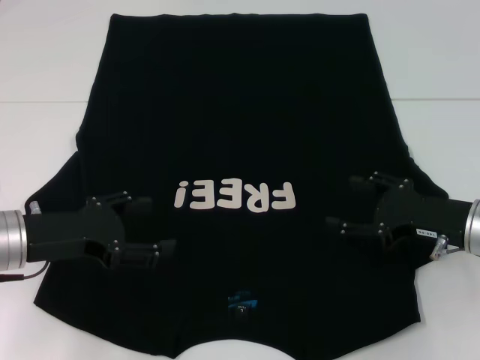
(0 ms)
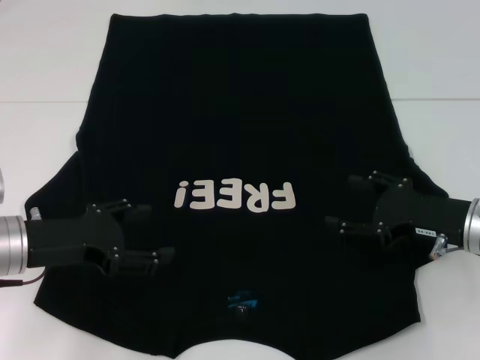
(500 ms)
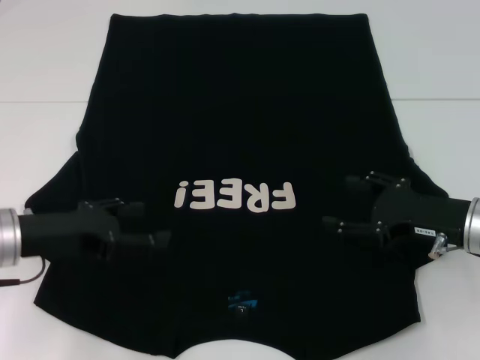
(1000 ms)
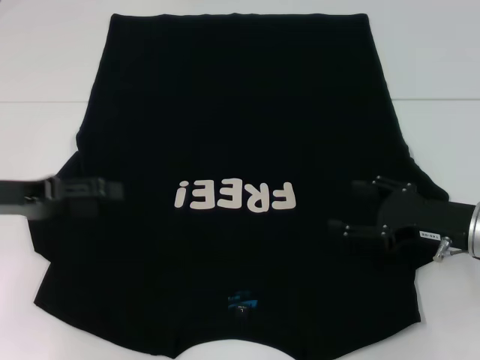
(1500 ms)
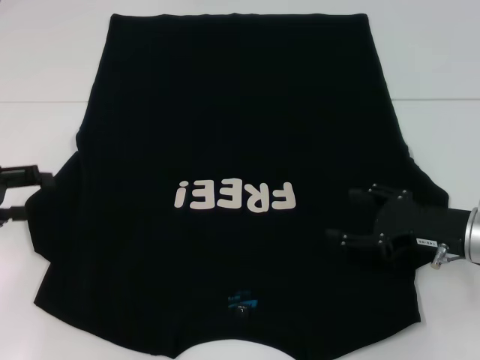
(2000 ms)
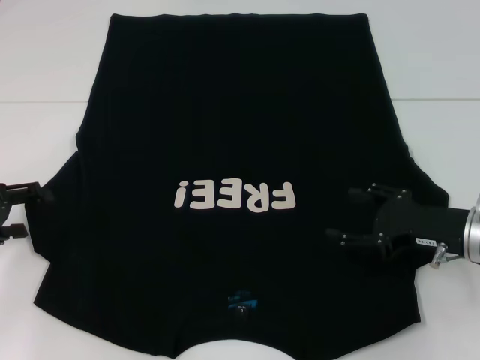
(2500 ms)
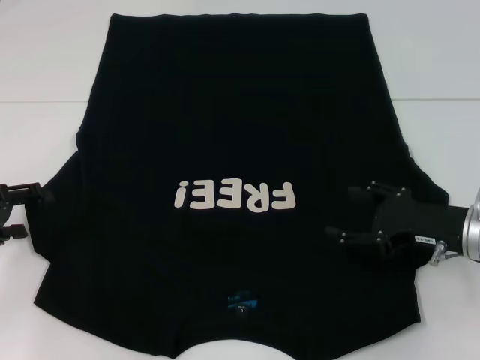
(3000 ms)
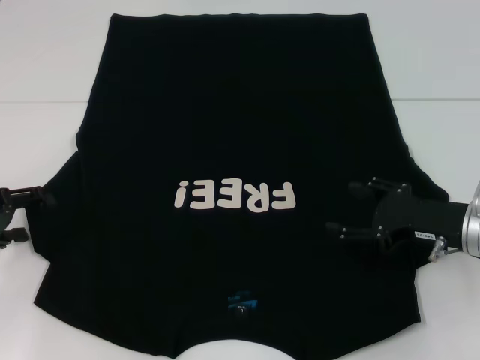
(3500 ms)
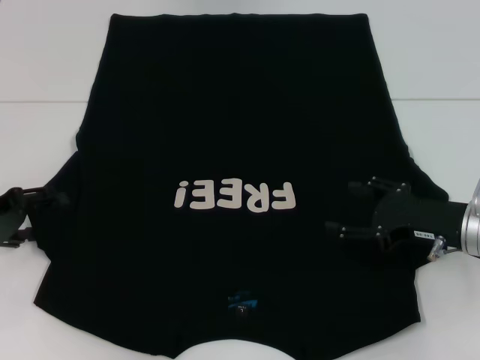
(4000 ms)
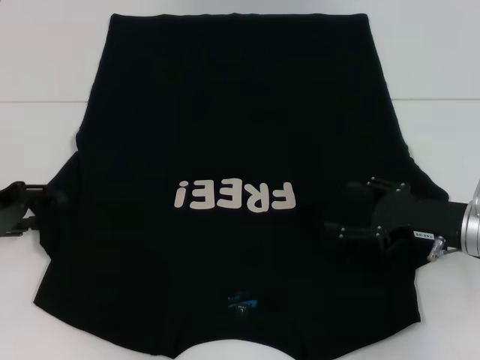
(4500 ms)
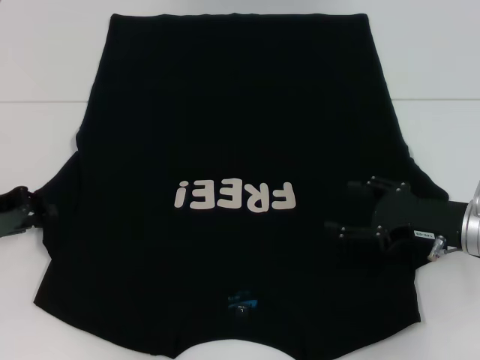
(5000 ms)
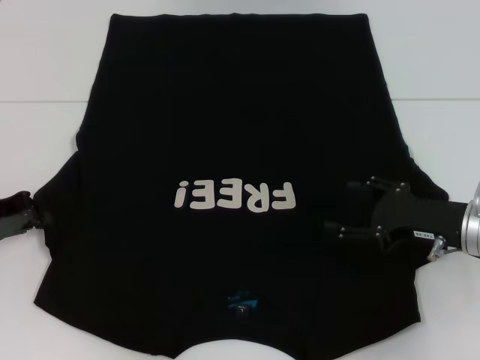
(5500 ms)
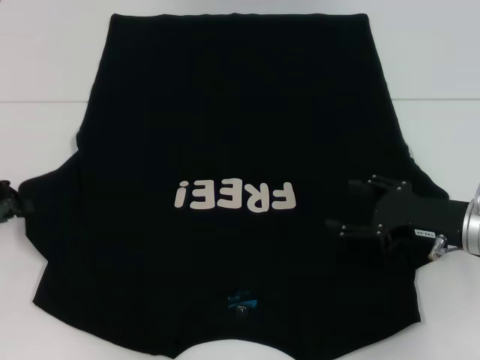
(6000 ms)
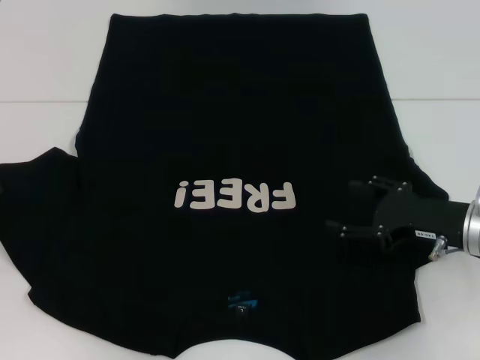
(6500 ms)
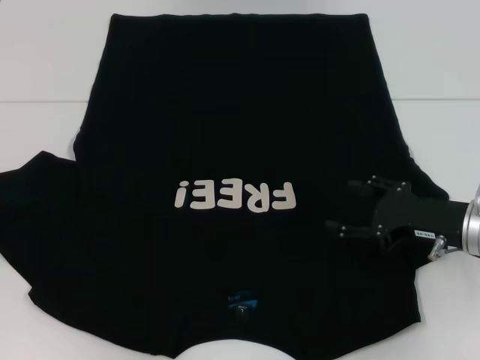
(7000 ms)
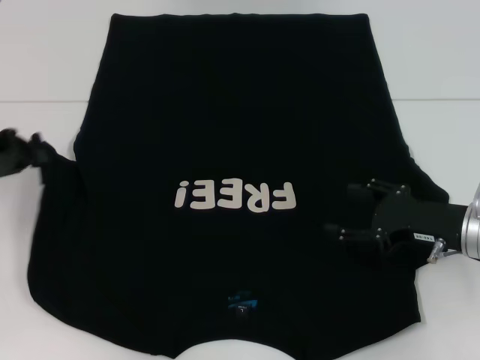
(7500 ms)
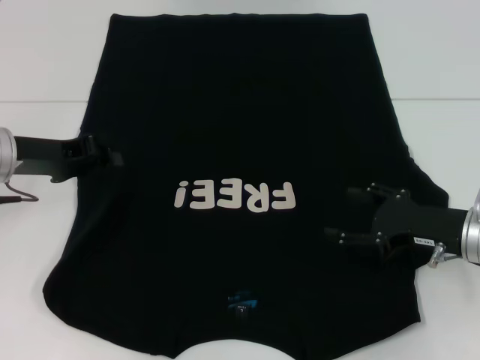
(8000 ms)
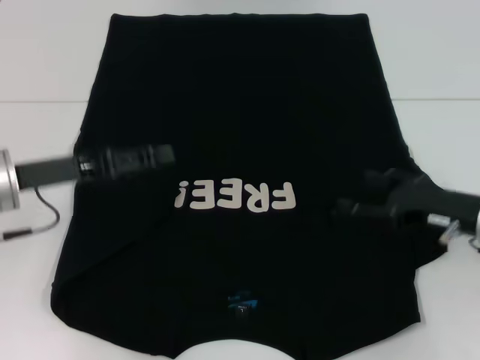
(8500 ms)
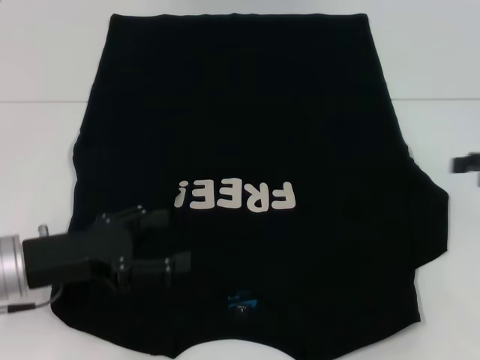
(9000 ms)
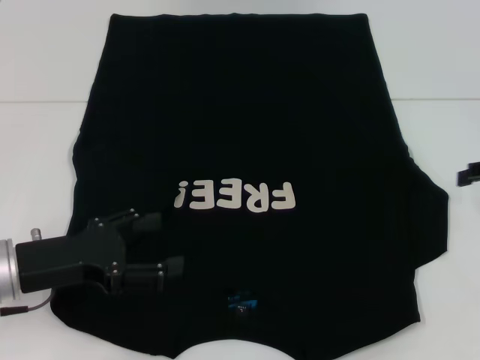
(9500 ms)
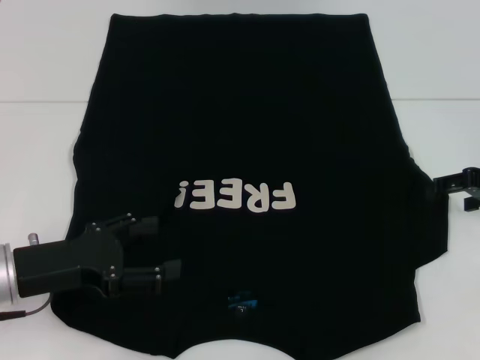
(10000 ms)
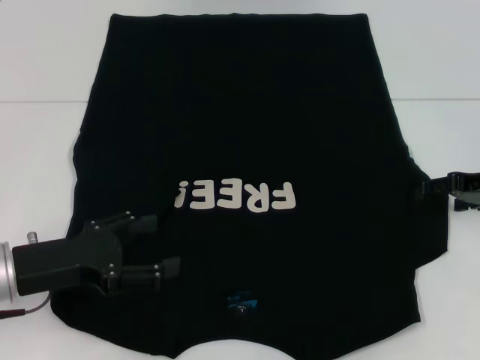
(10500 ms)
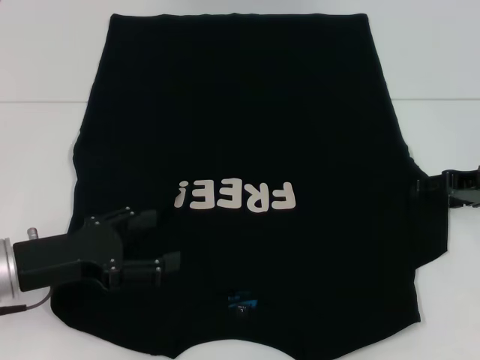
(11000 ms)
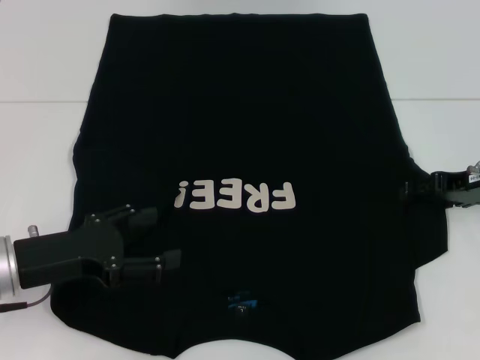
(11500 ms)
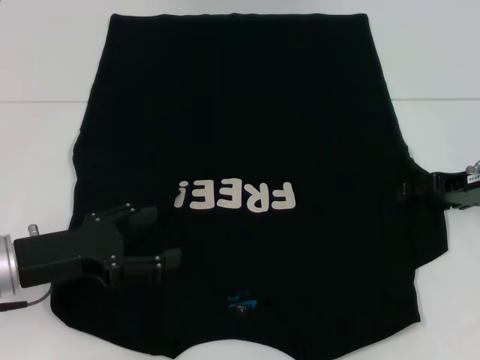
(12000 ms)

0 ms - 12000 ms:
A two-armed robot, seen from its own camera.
Step, 0 ms - 8000 ms: Fold the bottom left sleeve with your left hand.
0 ms - 2000 ms: The left gripper goes about 10 cm to the left.
2000 ms - 4000 ms: The grippers stay close to where they were, moving slightly.
4000 ms - 6000 ms: The left gripper closes its fingers.
6000 ms - 8000 ms: The left gripper goes roughly 10 cm to the right.
8000 ms - 10000 ms: The left gripper heads backward and downward, covering approximately 10 cm, and opens up. Meanwhile the right gripper heads to the right, upward and forward, covering approximately 10 cm.
10000 ms - 12000 ms: There are only small adjustments of the grippers.

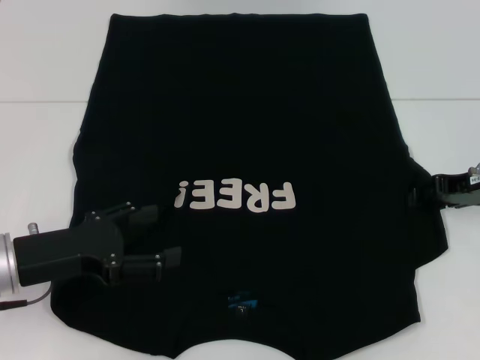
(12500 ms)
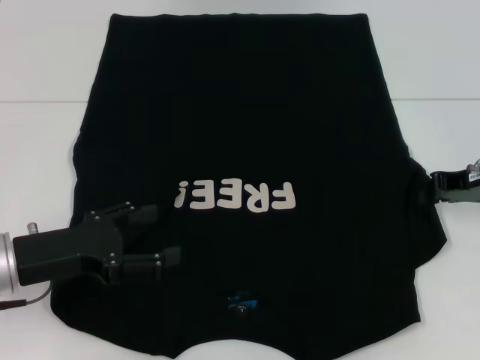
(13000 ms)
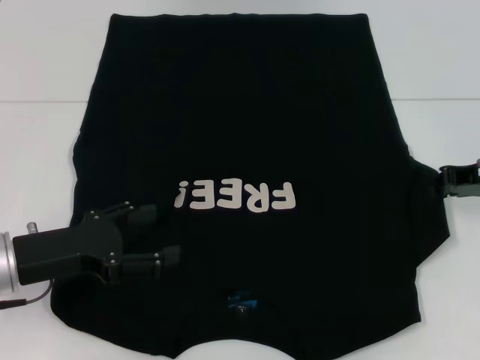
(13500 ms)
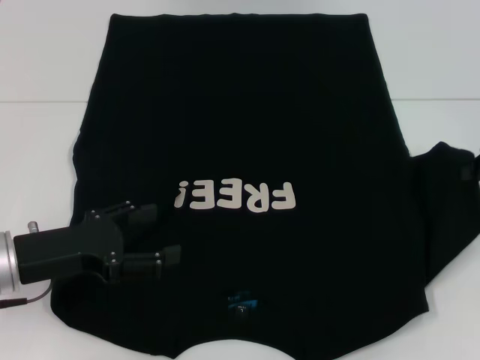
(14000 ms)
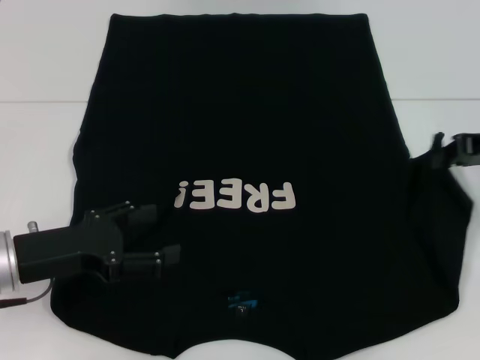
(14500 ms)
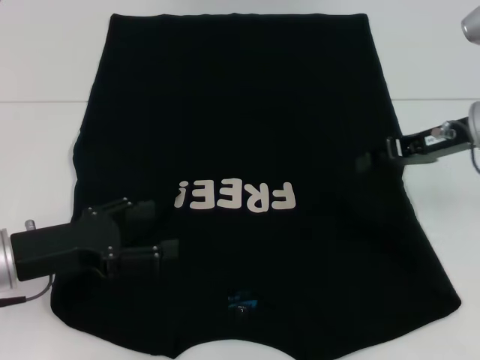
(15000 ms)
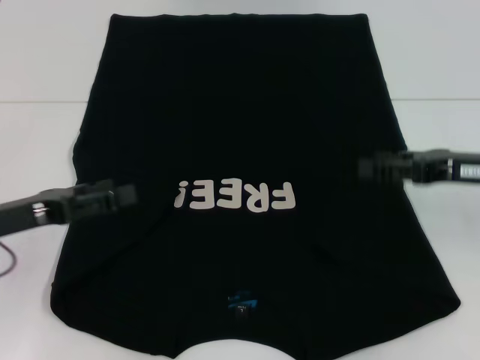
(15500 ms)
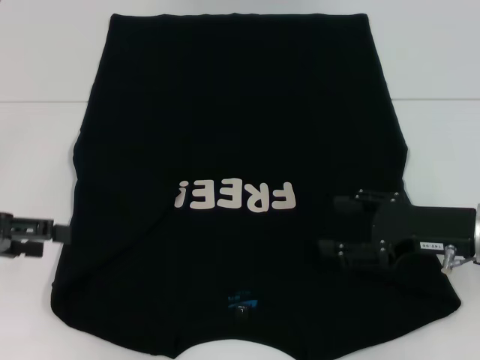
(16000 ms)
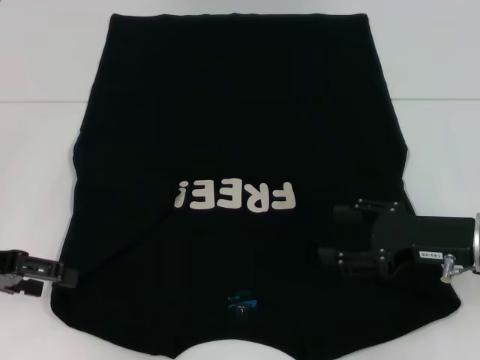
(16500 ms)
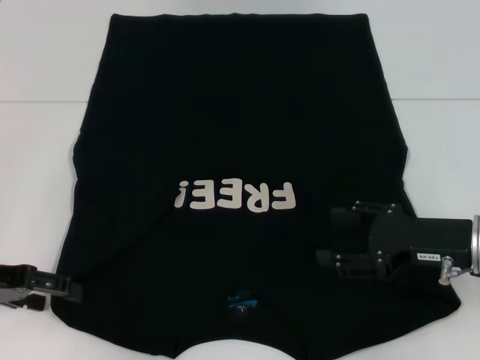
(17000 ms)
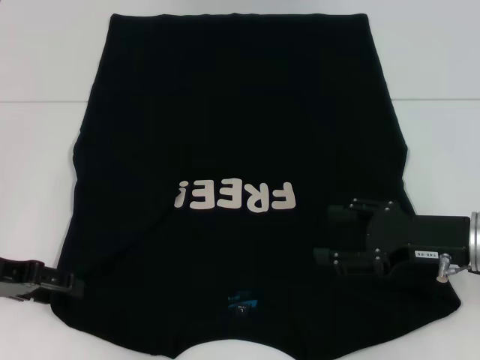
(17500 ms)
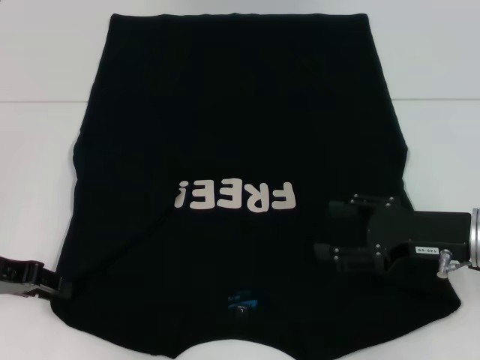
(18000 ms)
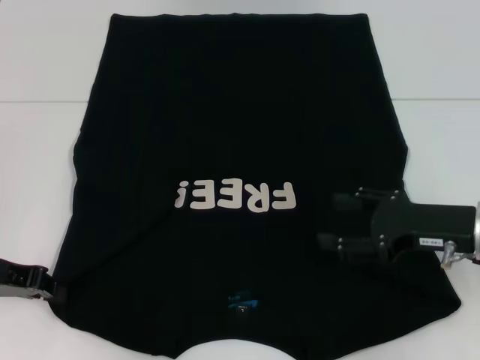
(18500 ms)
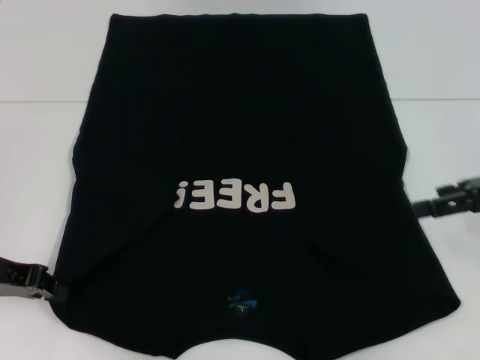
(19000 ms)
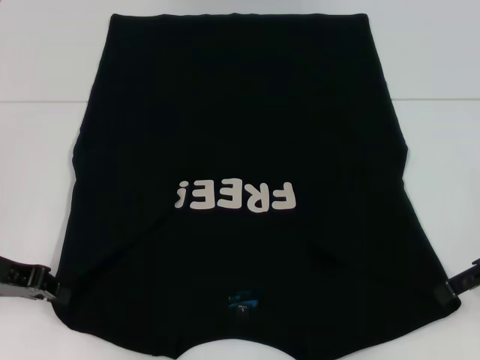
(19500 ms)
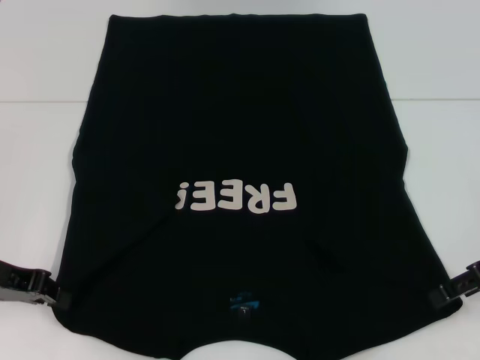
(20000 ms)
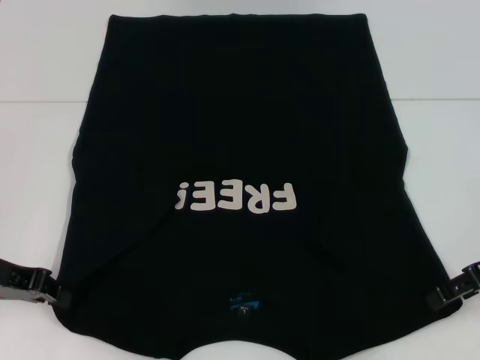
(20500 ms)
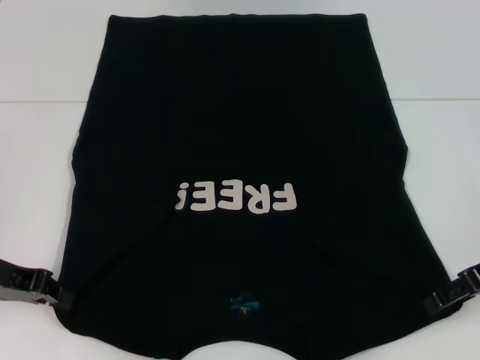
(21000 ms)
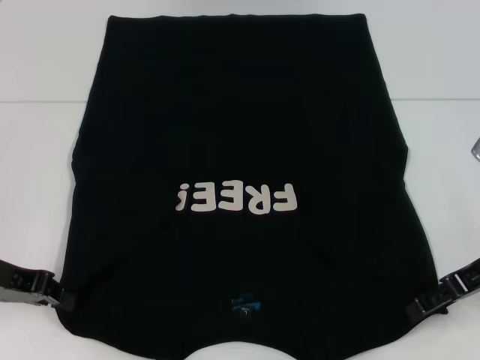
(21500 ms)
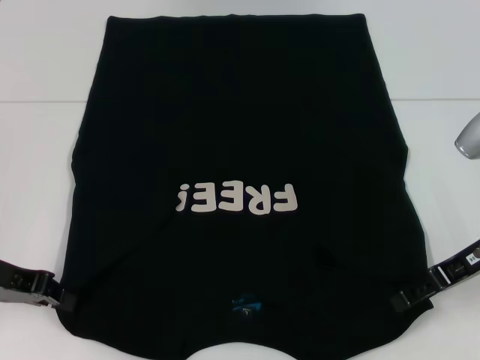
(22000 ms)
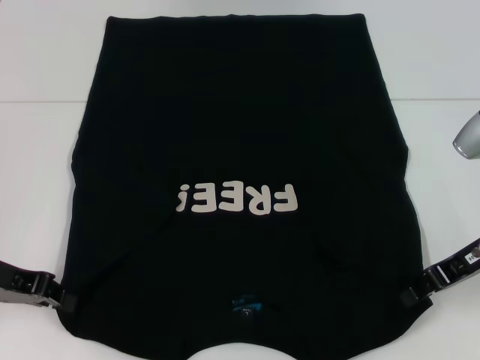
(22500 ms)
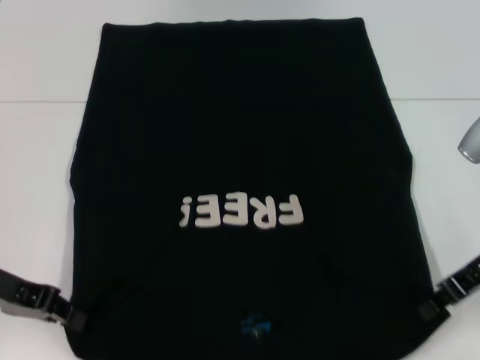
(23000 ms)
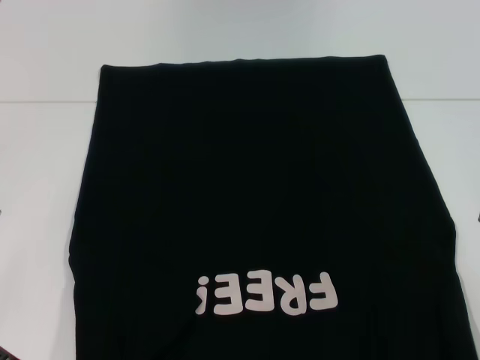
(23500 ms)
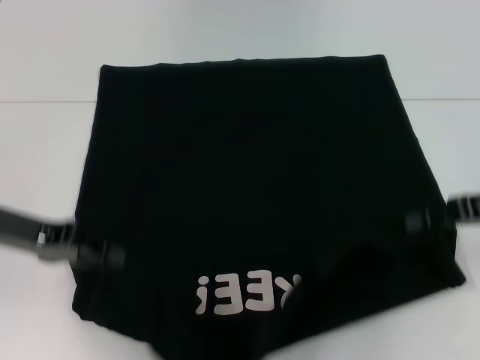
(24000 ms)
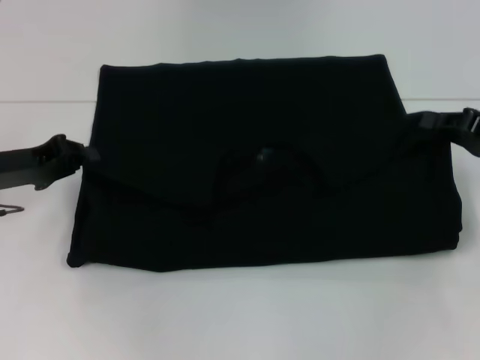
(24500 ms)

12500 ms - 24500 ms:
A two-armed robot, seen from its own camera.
Step, 12500 ms - 15000 ms: Fold the bottom right sleeve with your right hand.
Step, 15500 ms - 18000 ms: Grab the bottom left corner with your left hand.
Step, 18500 ms - 22500 ms: Grab the bottom right corner with your right hand.
12500 ms - 14500 ms: The right gripper shifts approximately 5 cm upward, and closes.
14500 ms - 16500 ms: The right gripper goes approximately 15 cm downward, backward and to the left, and opens its fingers, while the left gripper is displaced to the left by some 10 cm.
16500 ms - 18500 ms: The left gripper closes.
18500 ms - 20500 ms: The right gripper goes some 5 cm to the right.
20500 ms - 22500 ms: The right gripper closes its fingers.
22500 ms - 24500 ms: The left gripper shifts some 5 cm forward. The right gripper heads to the right, covering about 5 cm, and closes up.

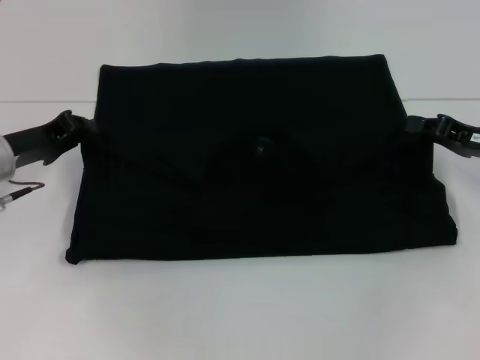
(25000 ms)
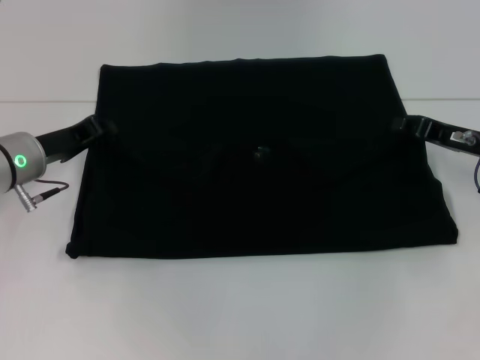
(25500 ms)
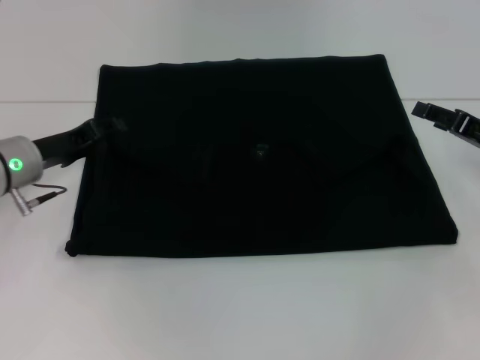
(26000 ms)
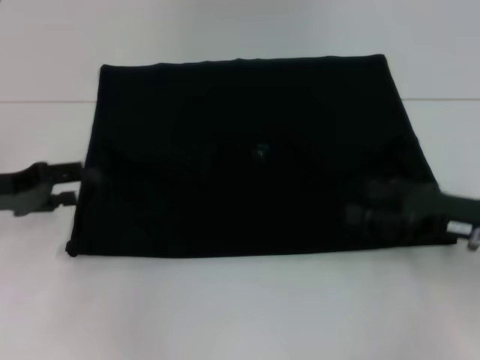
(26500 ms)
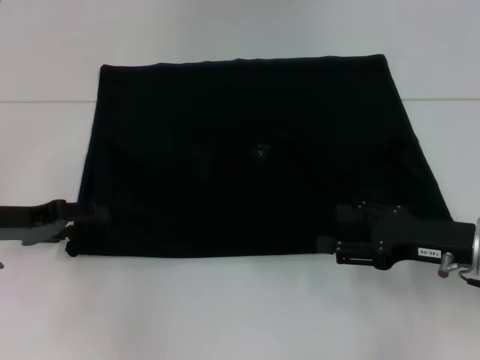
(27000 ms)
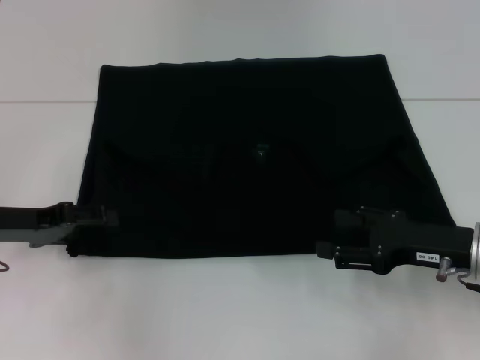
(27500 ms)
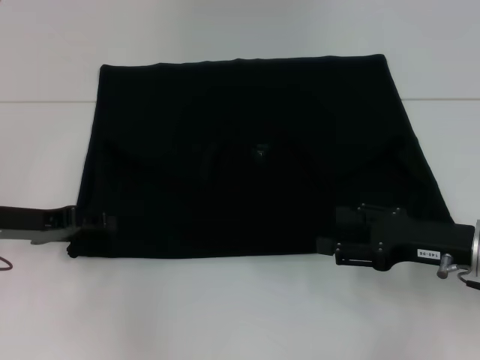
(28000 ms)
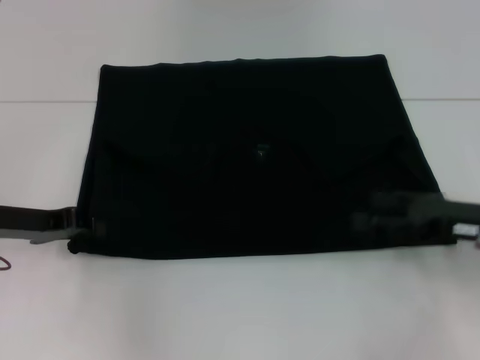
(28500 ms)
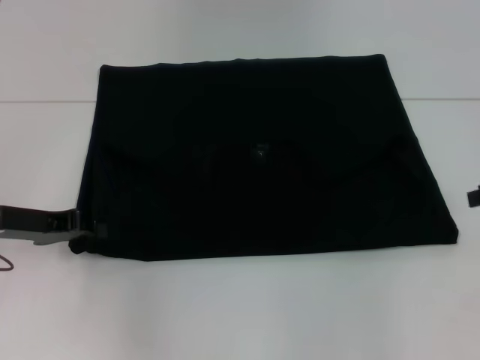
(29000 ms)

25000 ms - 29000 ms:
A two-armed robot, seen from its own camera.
25000 ms - 27000 ms: The left gripper ends up some 5 cm from where it was, and opens up, while the right gripper is displaced backward and to the left by about 10 cm, and opens.
27000 ms - 29000 ms: The right gripper shifts some 15 cm to the right, upward and forward, while the left gripper closes up.
